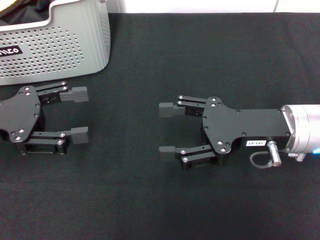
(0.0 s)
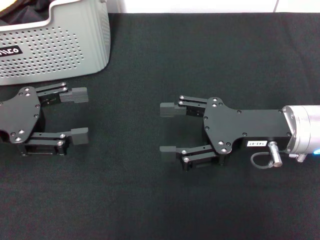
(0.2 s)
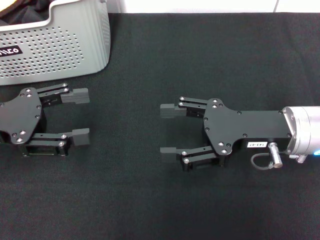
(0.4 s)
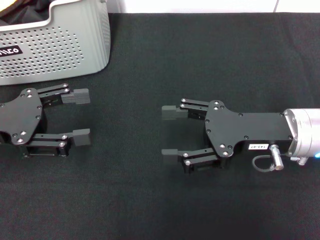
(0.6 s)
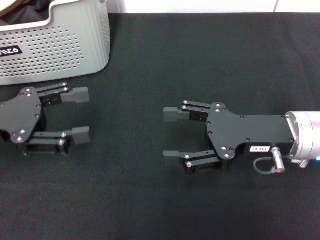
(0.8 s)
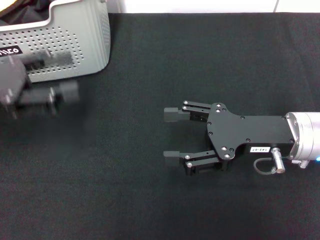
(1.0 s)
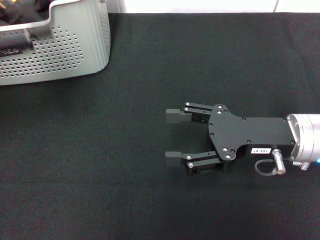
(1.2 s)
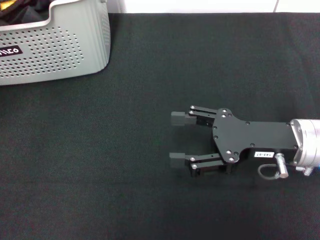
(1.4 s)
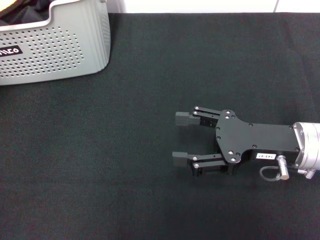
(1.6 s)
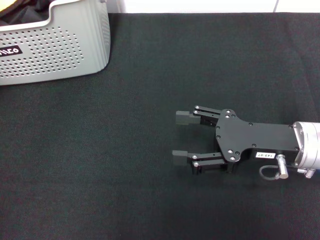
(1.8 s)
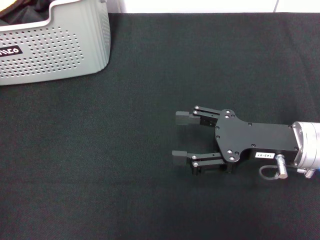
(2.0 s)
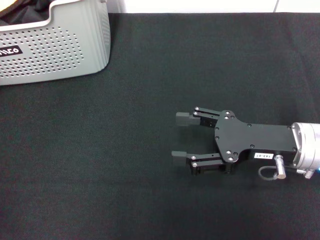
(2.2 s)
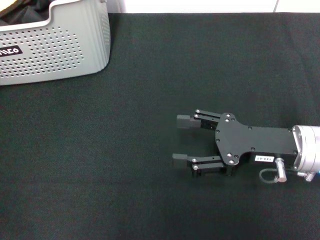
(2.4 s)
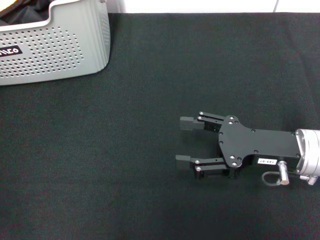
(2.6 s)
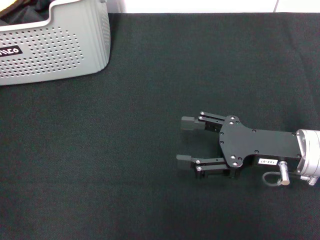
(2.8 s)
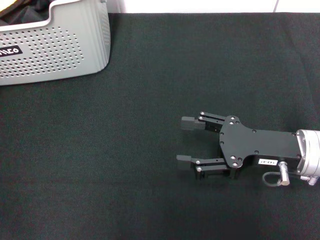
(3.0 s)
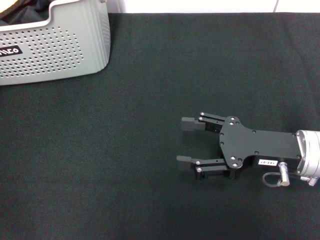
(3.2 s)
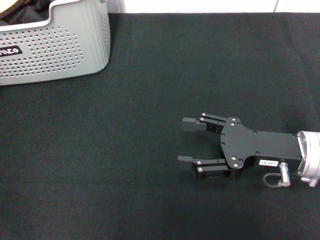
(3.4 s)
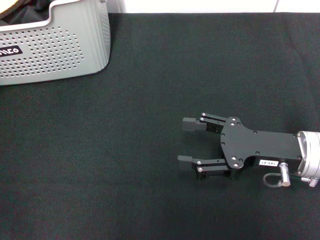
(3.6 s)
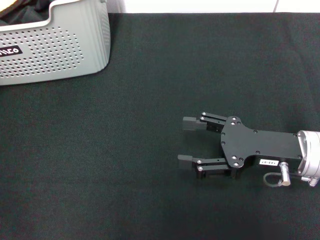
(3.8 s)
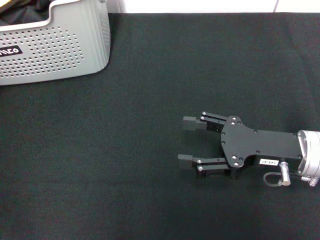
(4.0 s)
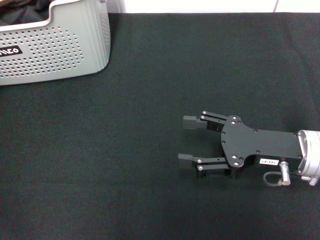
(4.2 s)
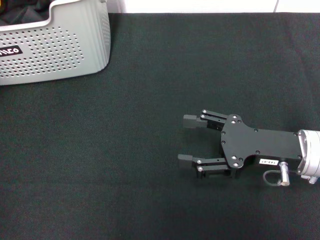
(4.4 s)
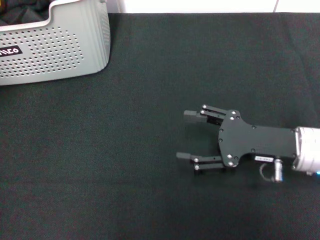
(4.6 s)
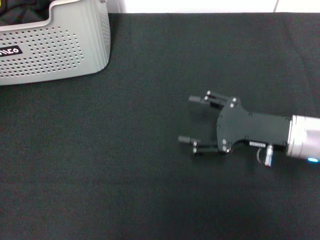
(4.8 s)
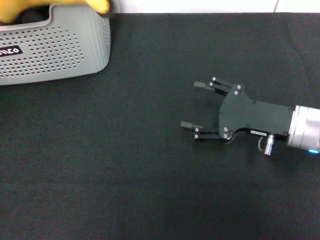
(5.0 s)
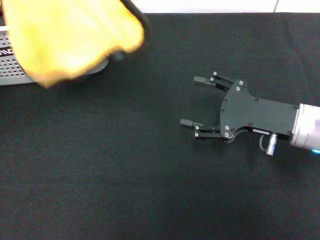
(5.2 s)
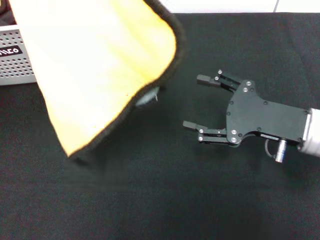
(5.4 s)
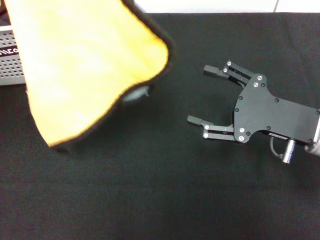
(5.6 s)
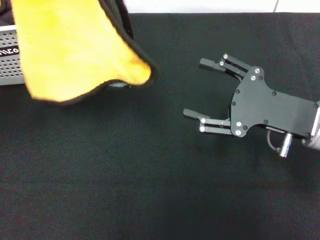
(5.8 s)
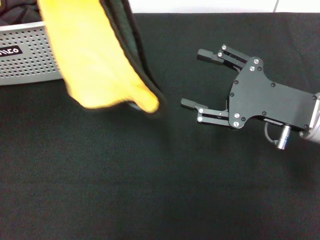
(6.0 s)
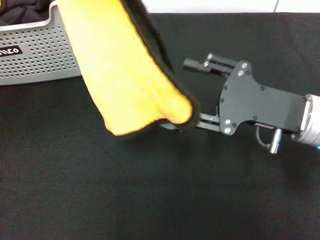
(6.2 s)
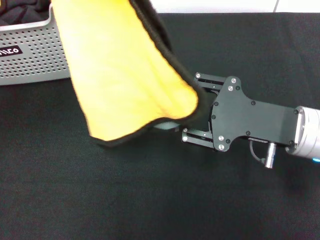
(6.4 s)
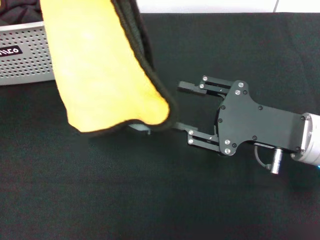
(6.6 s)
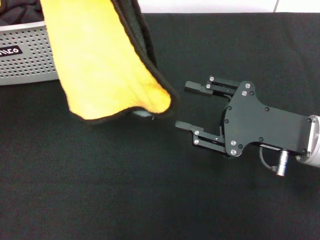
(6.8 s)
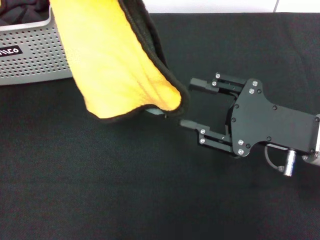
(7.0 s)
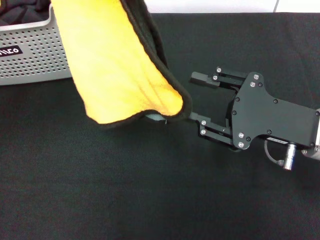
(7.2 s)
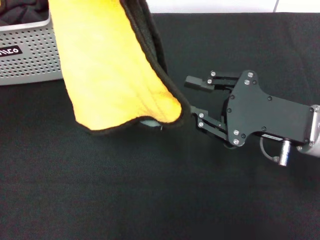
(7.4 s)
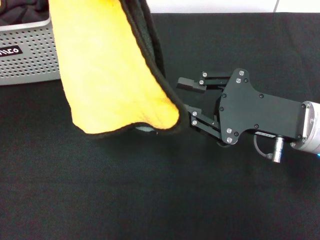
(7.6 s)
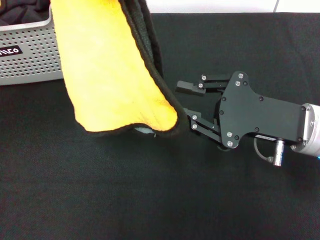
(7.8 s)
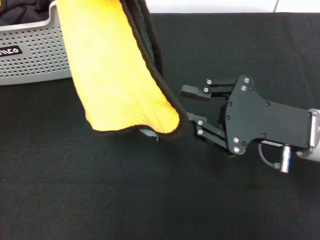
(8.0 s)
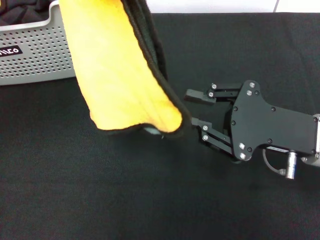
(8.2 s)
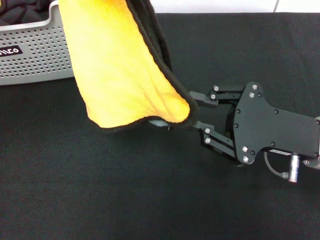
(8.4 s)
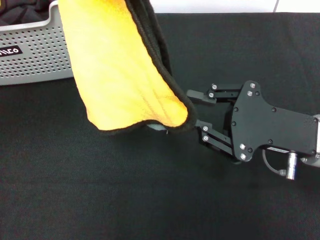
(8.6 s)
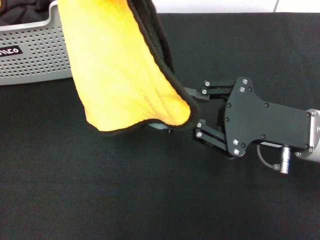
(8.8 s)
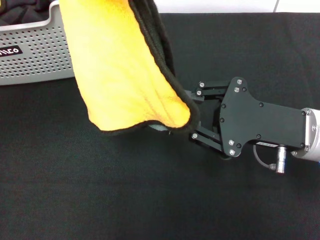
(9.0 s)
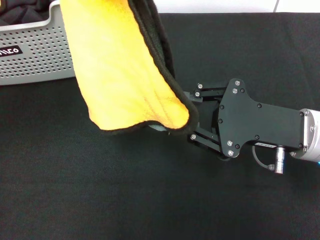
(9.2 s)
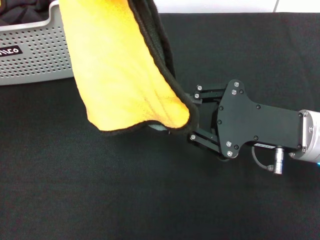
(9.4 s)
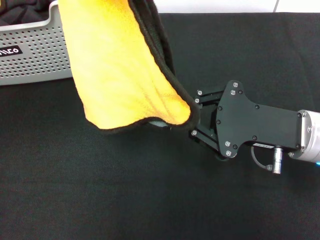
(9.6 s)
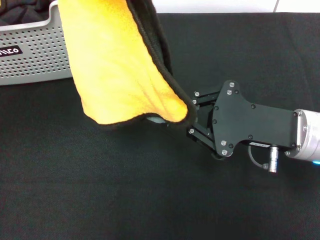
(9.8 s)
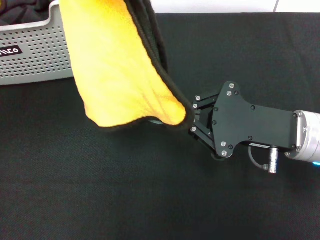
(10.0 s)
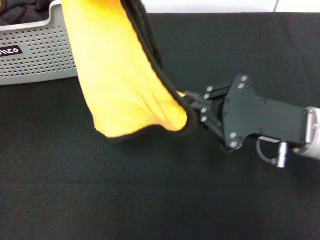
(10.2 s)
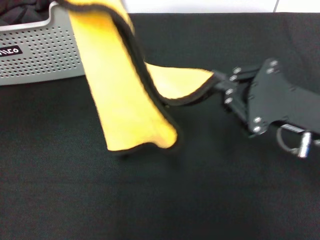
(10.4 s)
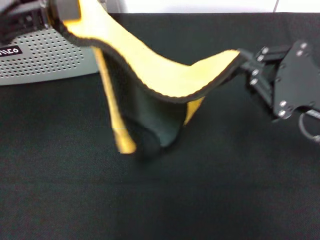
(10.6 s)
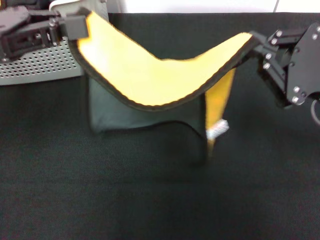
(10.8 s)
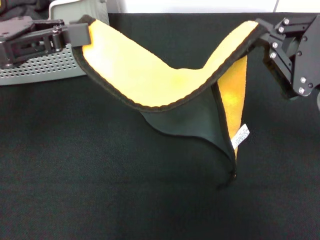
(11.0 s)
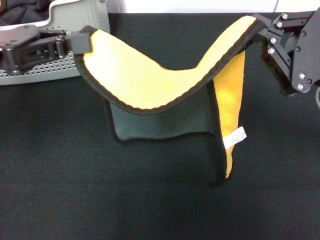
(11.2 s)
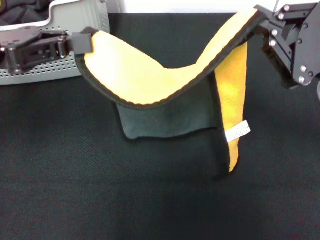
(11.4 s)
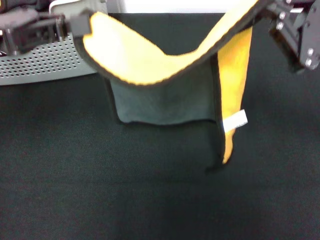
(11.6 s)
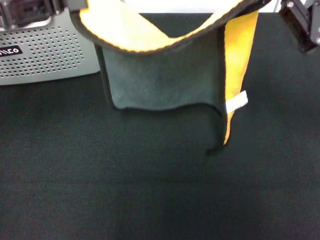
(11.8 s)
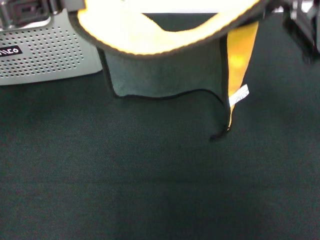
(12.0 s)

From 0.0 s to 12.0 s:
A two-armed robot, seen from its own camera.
Task of the whole recording: pick up the towel from the storage box and lay it flat on the black tablecloth.
Step, from 0.0 s to 3.6 s: Pick up a towel with the left gripper.
Step, from 3.8 s to 10.0 s: Spread the towel flat with the left gripper.
From 0.0 s to 1.6 s: The left gripper heads upward, covering about 15 cm.
From 1.6 s to 3.0 s: The left gripper goes some 5 cm forward.
From 3.0 s to 4.4 s: The left gripper closes up.
From 4.4 s to 6.0 s: The left gripper heads backward, to the right and upward, covering some 10 cm.
From 6.0 s to 7.6 s: The right gripper closes.
From 7.6 s to 9.0 s: The grippers move only a little.
From 10.4 s to 12.0 s: The right gripper moves upward, roughly 10 cm. Meanwhile the left gripper shifts some 5 cm downward.

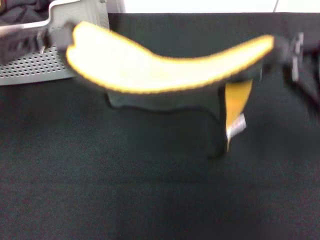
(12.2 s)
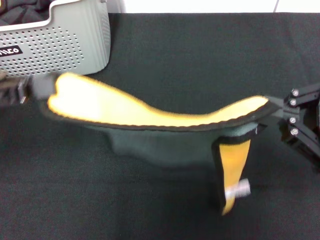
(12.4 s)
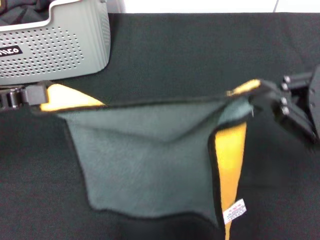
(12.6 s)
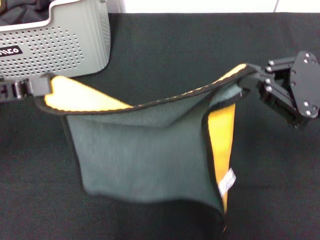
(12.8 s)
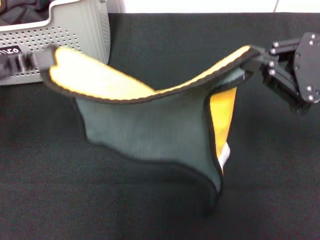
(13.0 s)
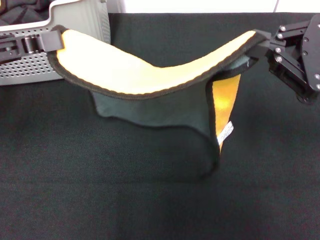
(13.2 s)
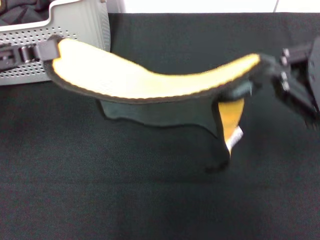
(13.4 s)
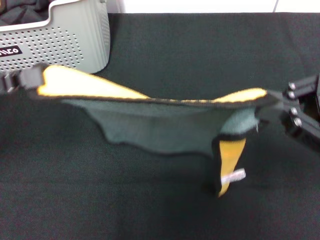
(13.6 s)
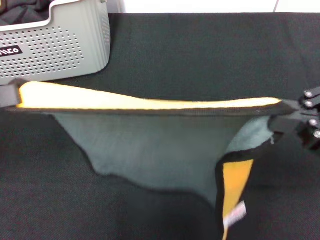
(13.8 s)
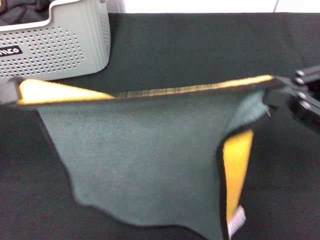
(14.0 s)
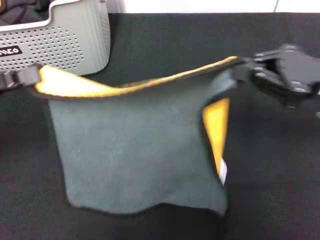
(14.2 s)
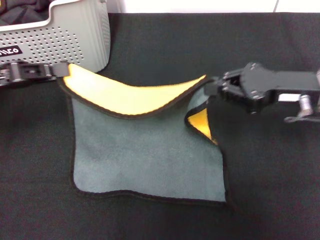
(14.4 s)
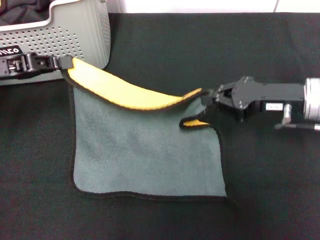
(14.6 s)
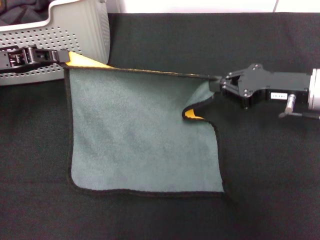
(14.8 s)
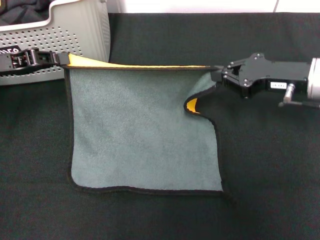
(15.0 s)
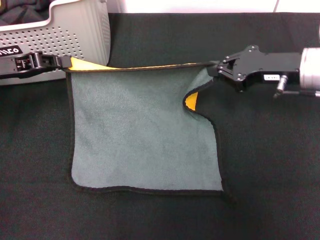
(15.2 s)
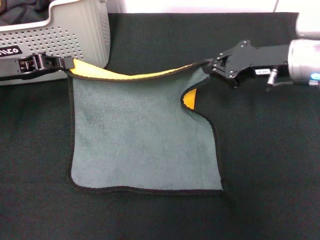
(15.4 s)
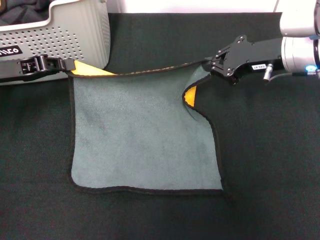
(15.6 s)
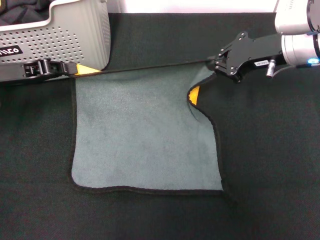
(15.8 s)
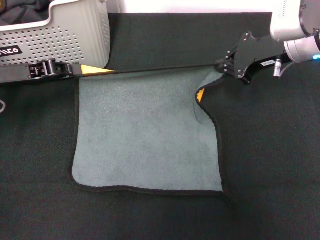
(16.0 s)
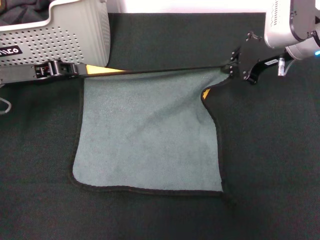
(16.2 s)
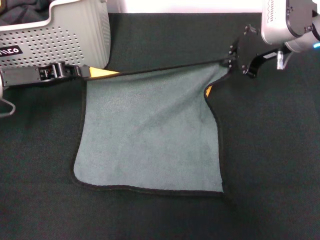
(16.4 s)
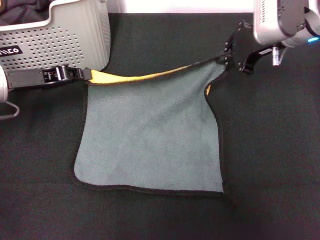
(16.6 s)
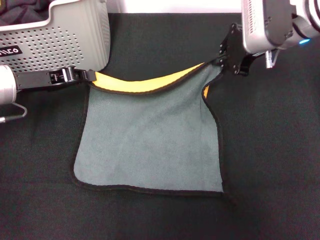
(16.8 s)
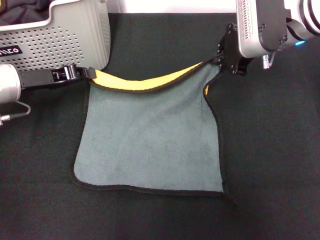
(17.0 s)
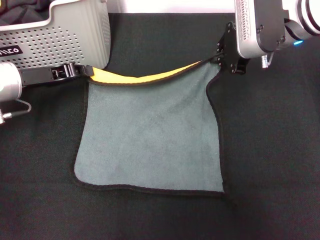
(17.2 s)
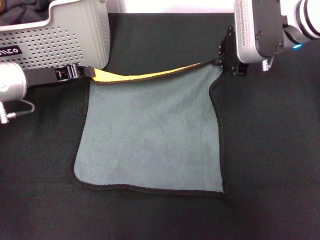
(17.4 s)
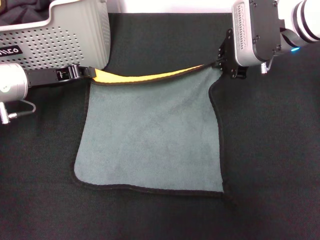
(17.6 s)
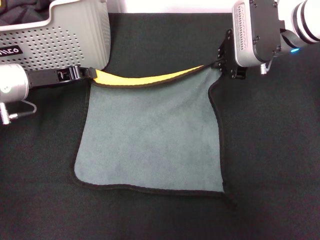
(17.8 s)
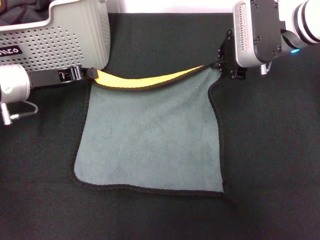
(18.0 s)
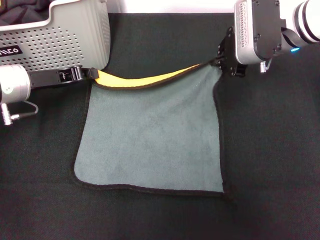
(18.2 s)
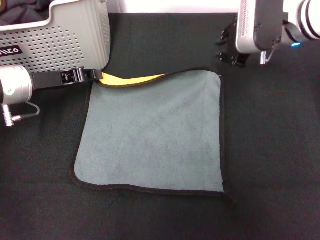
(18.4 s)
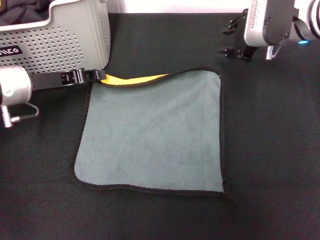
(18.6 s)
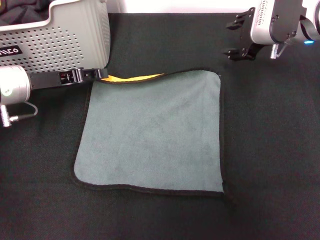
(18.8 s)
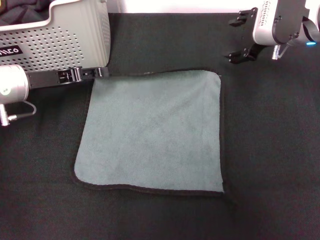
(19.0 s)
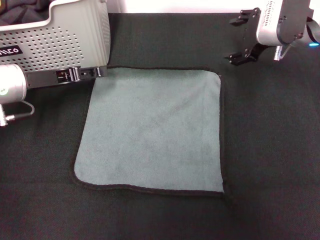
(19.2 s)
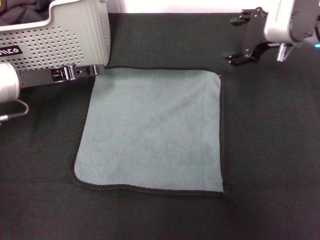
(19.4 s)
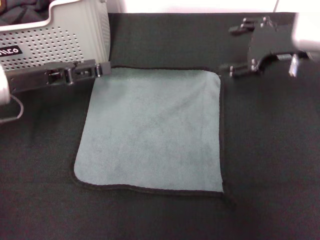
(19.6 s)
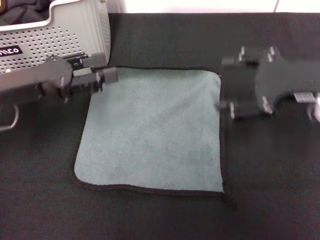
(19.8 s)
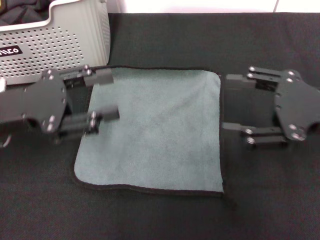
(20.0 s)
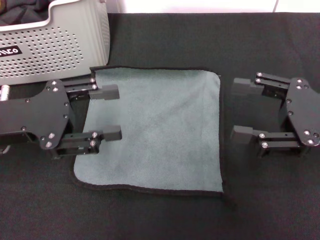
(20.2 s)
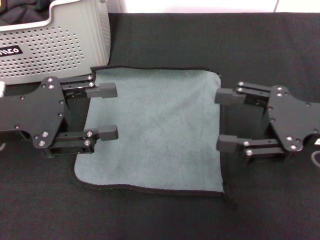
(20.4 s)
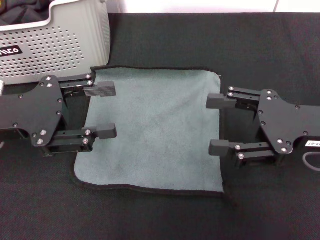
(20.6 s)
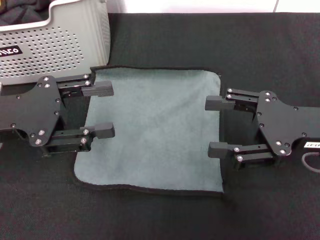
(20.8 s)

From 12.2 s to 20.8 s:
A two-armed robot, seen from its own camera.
Task of the whole recording: pick up the towel from the storage box and lay it flat on the black tablecloth.
Step, from 12.2 s to 18.6 s: Spread the towel flat with the right gripper.
From 12.2 s to 13.6 s: The left gripper ends up some 5 cm from where it was, while the right gripper swings forward and backward, some 5 cm each way, with 2 reversals.
From 13.6 s to 15.0 s: The right gripper heads forward and downward, covering approximately 15 cm. Meanwhile the left gripper shifts approximately 10 cm forward.
From 15.0 s to 16.6 s: The right gripper shifts roughly 10 cm upward, forward and to the left.
From 16.6 s to 18.0 s: The grippers move only a little.
From 18.0 s to 19.4 s: The right gripper opens; the left gripper opens.
From 19.4 s to 20.8 s: The left gripper shifts about 10 cm backward. Meanwhile the right gripper moves backward, approximately 15 cm.
